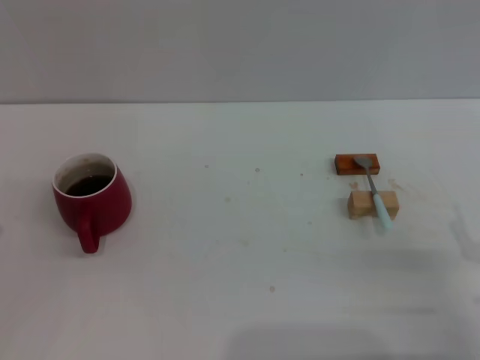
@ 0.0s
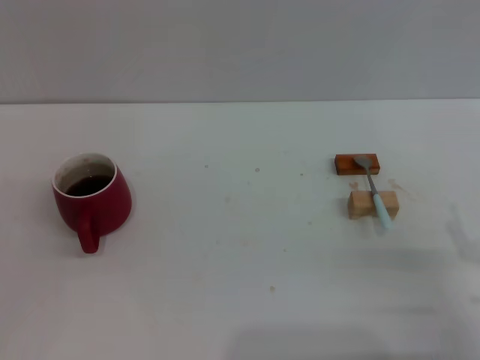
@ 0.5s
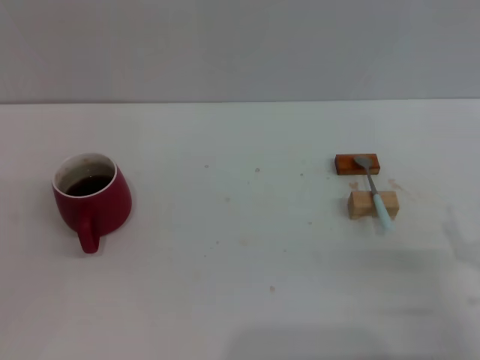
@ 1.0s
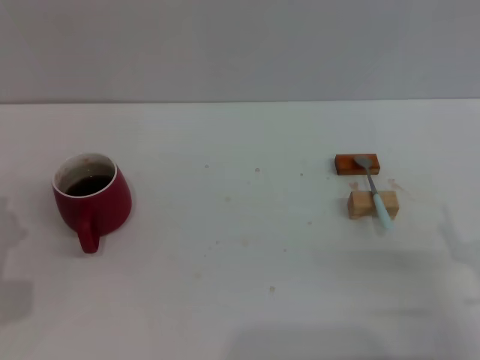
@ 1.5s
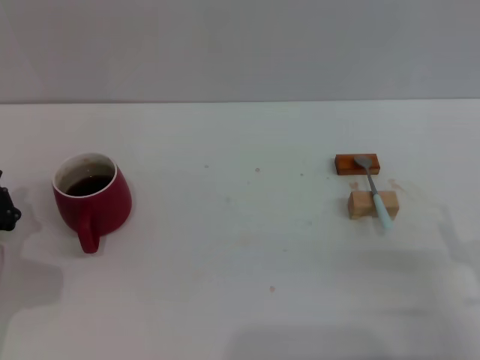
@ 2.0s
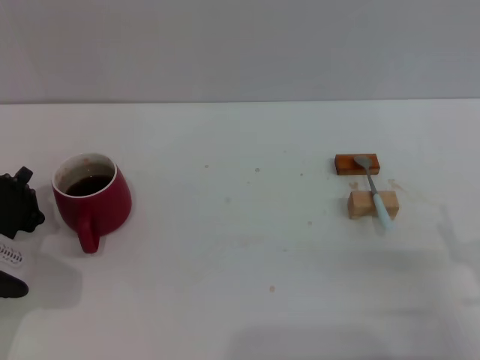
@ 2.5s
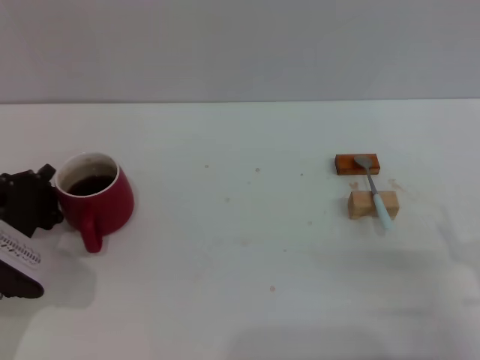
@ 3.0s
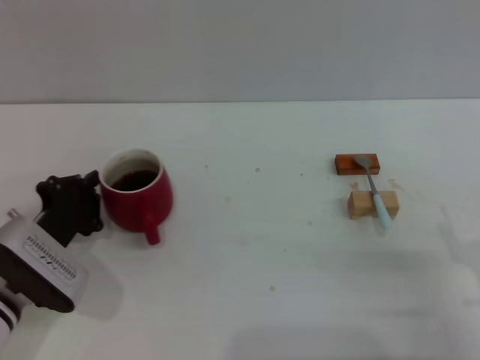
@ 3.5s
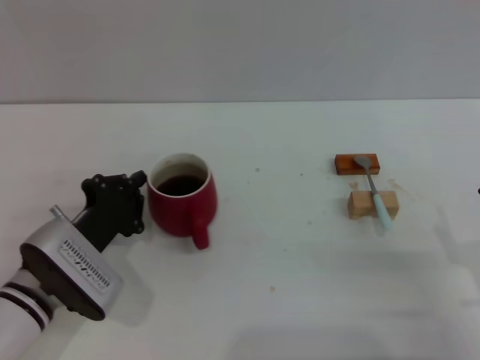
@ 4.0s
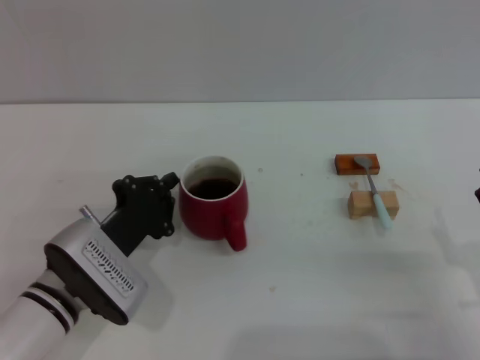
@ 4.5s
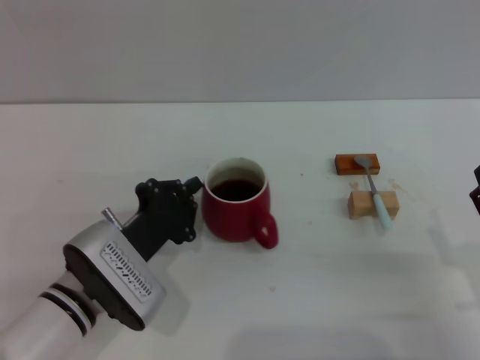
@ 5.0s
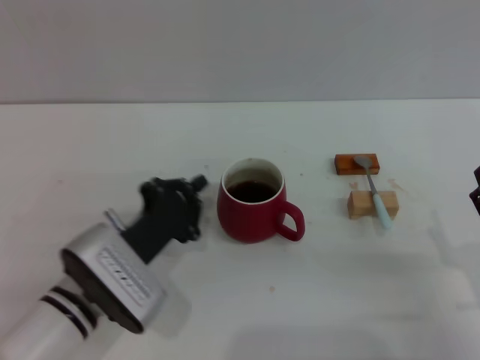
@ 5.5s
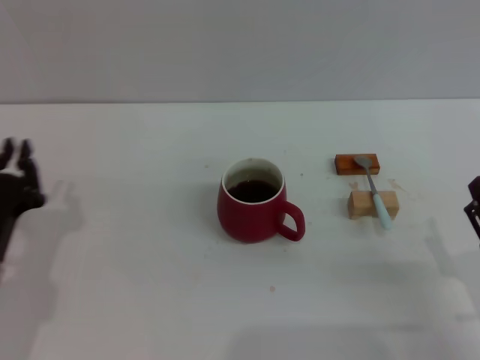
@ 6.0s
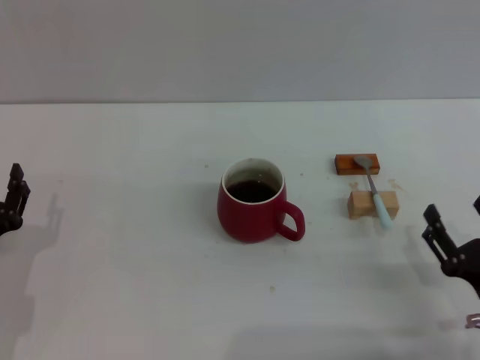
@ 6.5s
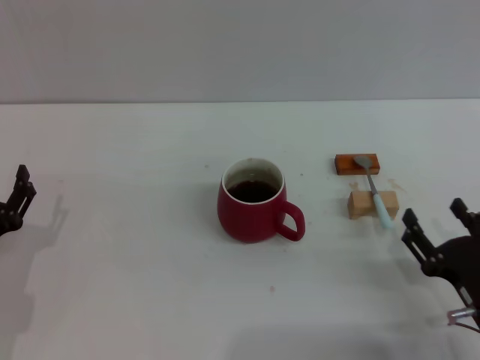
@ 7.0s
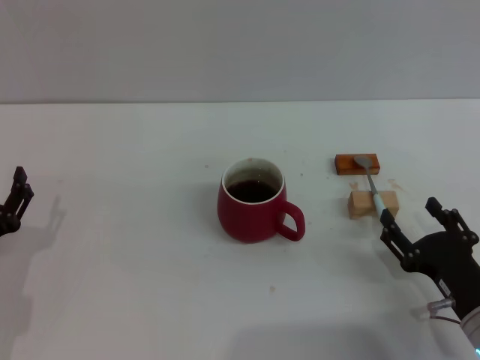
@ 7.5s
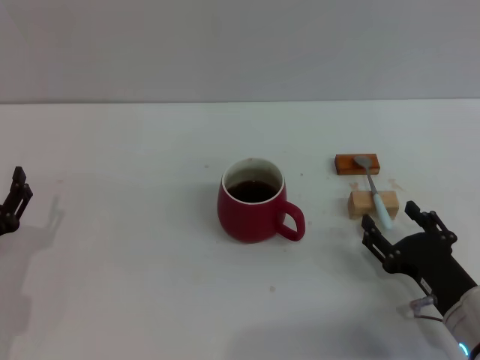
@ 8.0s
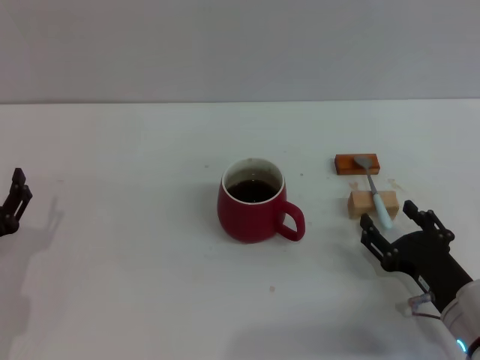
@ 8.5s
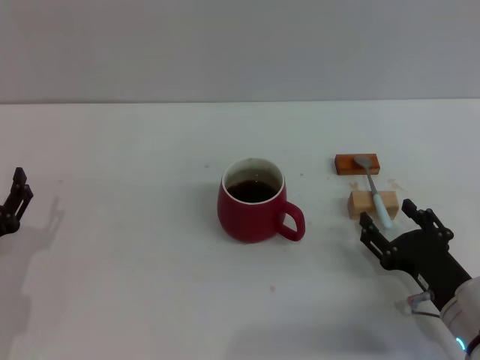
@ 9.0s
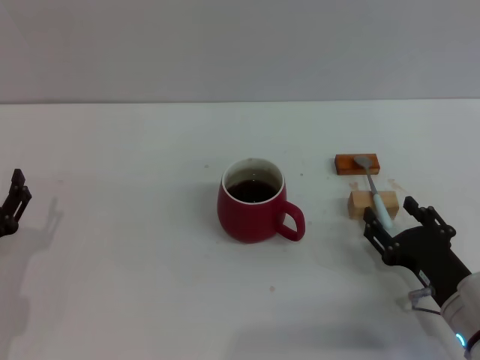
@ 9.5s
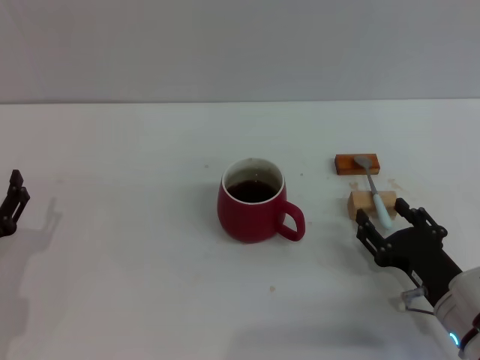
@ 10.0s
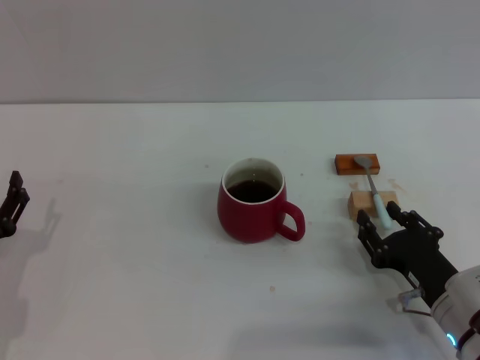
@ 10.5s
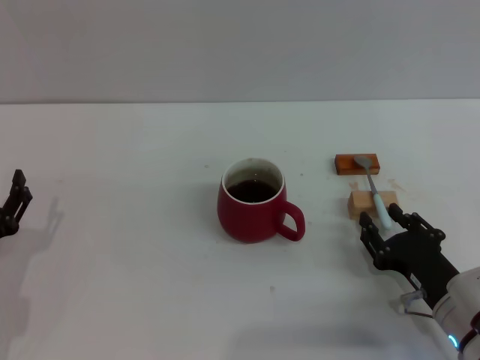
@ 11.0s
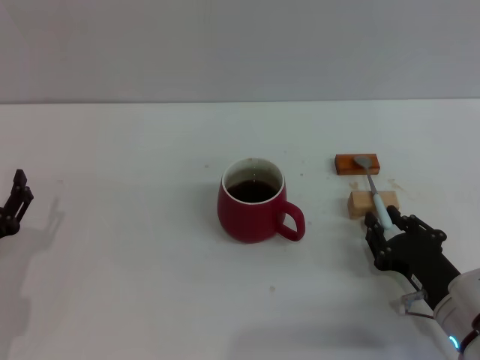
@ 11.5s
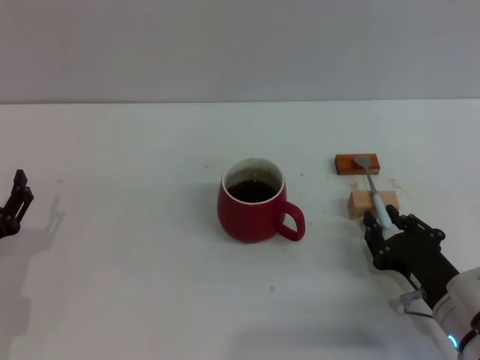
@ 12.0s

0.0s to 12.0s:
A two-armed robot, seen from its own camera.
Task of the whole recording: Move the red cup to the center, lift the blue spoon, stir it three times in the cup, and put the spoon into the cup.
Step, 0.0s to 5.5s: Move the cup with coffee to the center of view with the left gripper.
2.0s to 4.0s: The left gripper is displaced to the right by some 10 cm.
6.0s to 8.0s: The right gripper ends up roughly 5 cm from where it was, while the left gripper moves approximately 5 cm, and opens its fingers.
8.0s to 10.0s: Neither gripper changes place.
10.0s to 12.0s: The right gripper closes up.

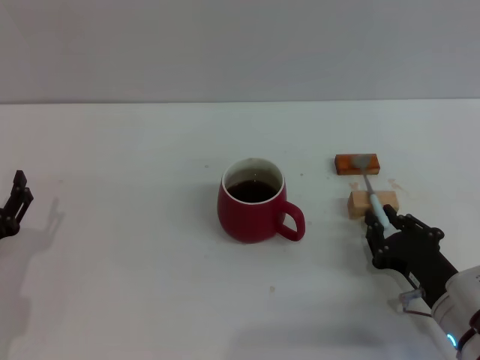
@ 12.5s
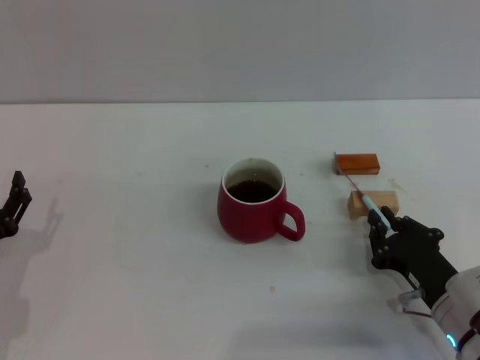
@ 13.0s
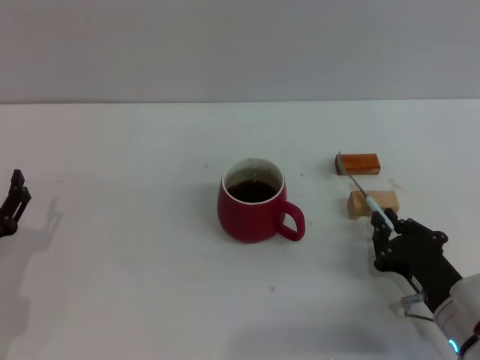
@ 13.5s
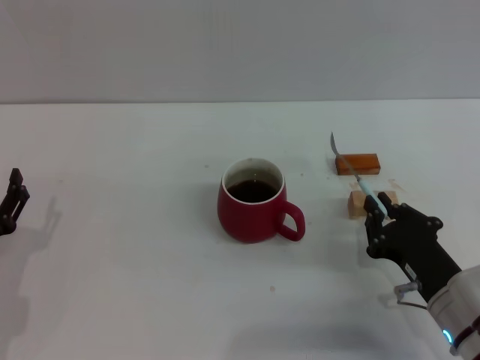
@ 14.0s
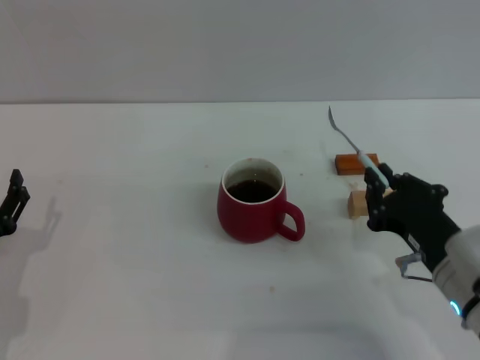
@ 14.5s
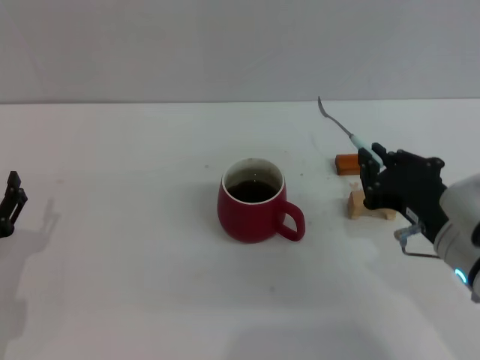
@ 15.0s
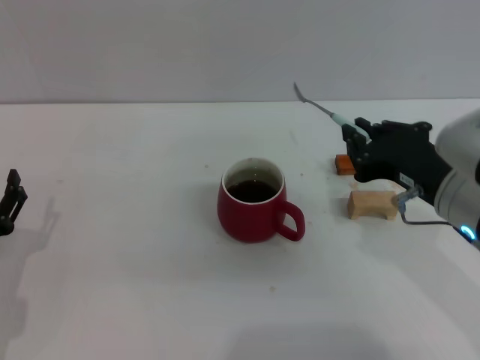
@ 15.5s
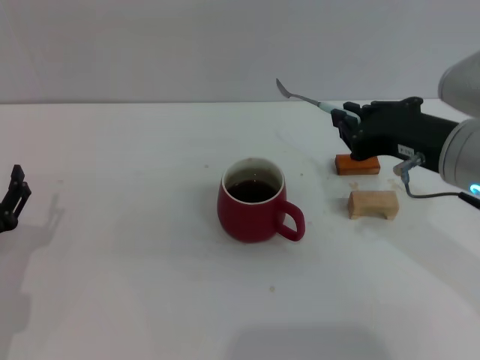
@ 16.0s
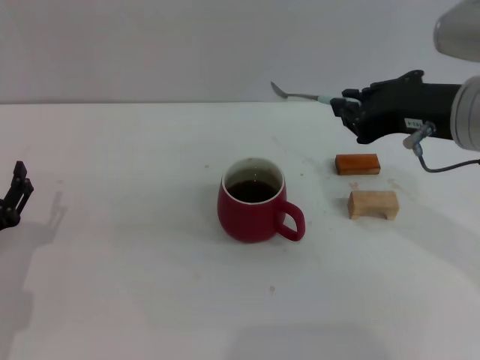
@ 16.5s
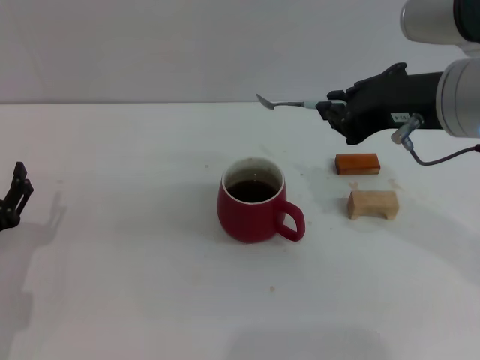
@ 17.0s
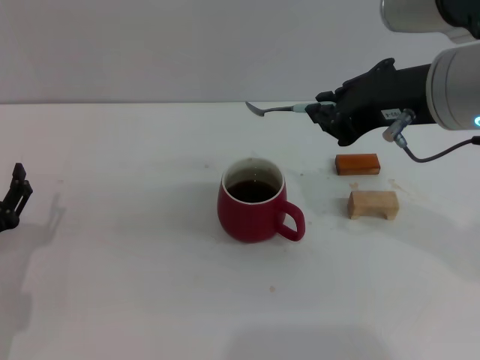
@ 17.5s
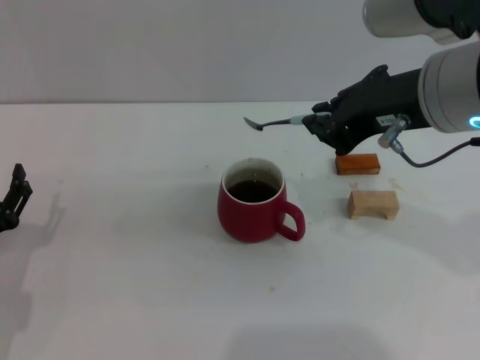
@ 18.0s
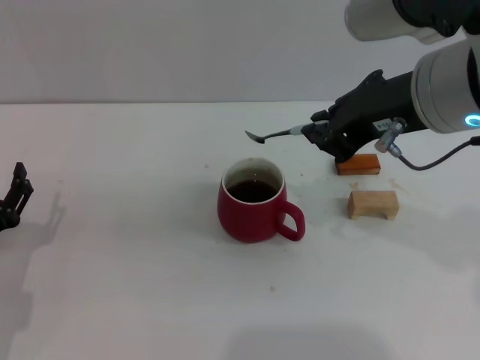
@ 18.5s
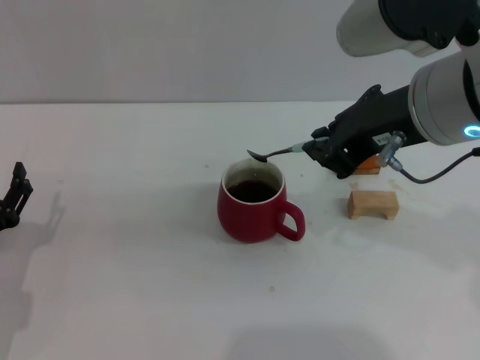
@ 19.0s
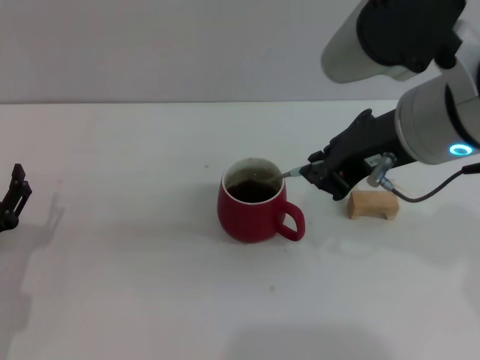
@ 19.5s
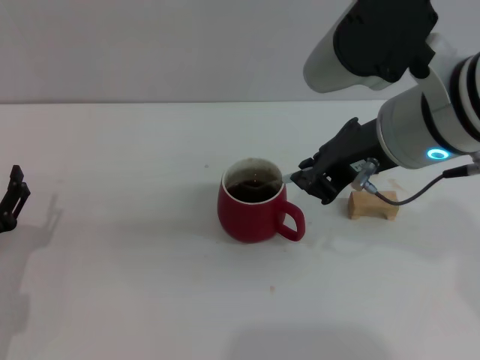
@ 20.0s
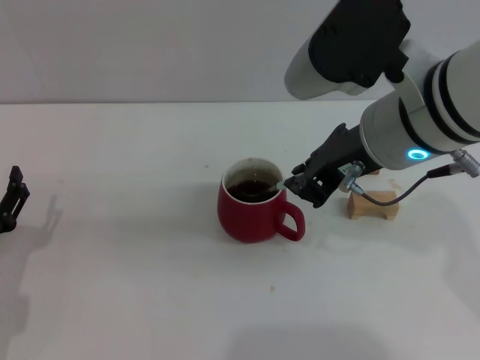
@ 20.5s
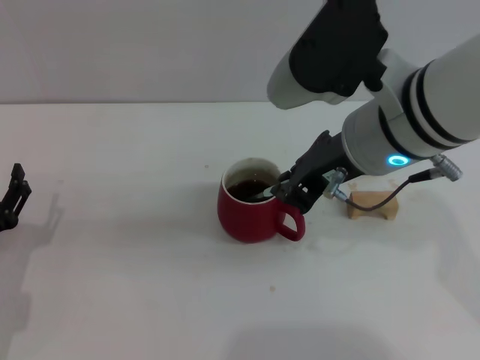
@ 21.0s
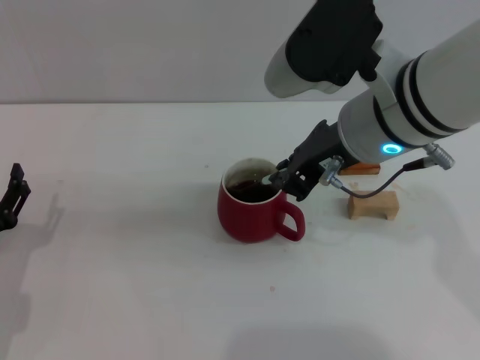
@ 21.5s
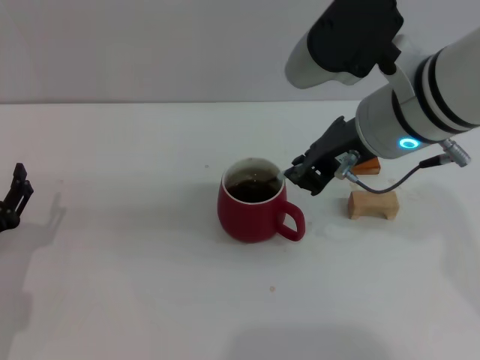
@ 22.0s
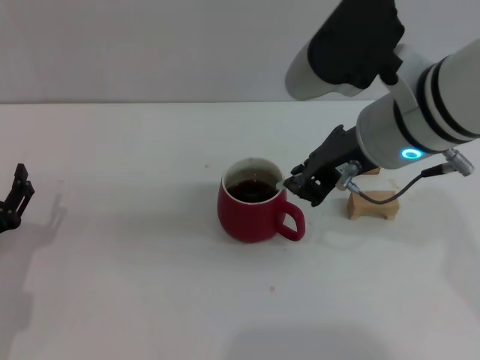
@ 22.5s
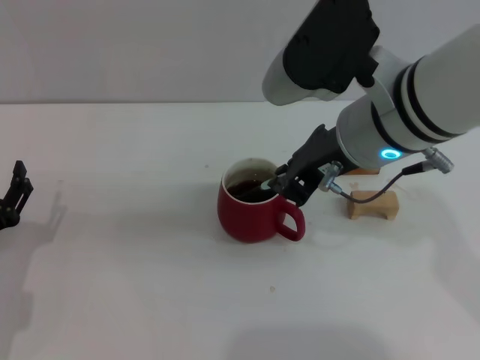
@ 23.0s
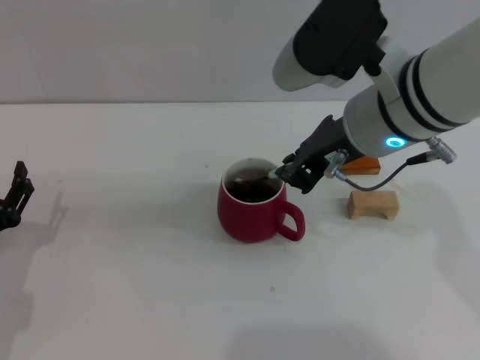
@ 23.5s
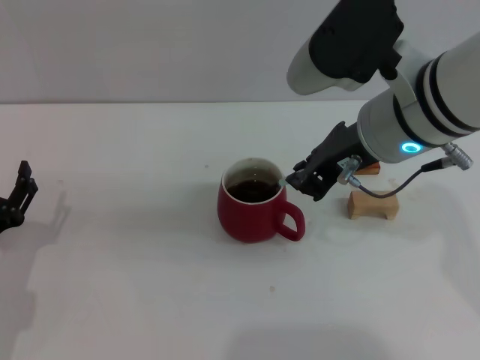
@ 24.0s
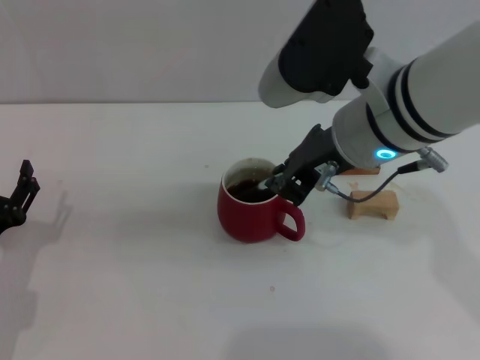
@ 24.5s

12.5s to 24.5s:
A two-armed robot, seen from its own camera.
Task of the whole recording: Move the red cup to the center, lift the blue spoon, stir it three times in the cup, and put the spoon into the cup.
12.5s to 14.5s: The right gripper goes about 5 cm upward.
14.5s to 16.5s: The right gripper heads upward, covering approximately 15 cm.
16.5s to 18.5s: The right gripper ends up some 5 cm from where it was.
18.5s to 20.5s: The right gripper ends up roughly 5 cm from where it was.
20.5s to 24.5s: The grippers move only a little.

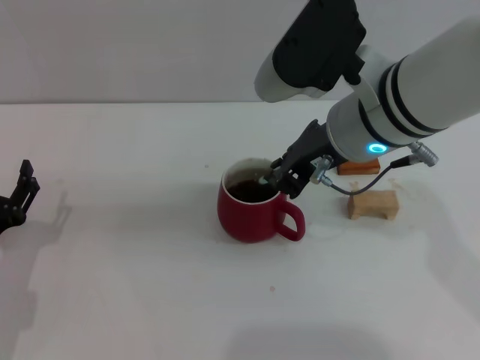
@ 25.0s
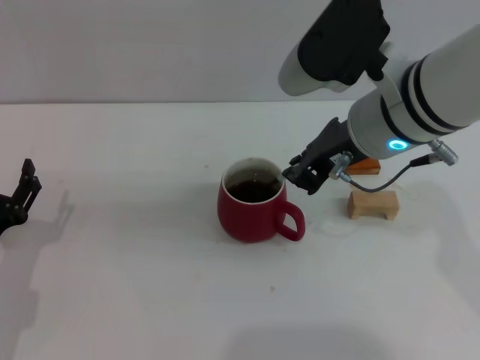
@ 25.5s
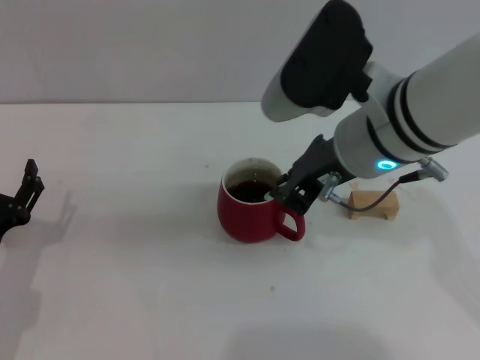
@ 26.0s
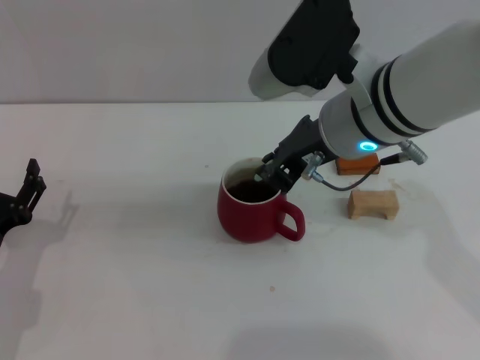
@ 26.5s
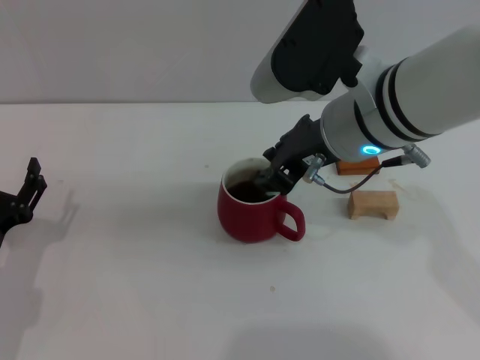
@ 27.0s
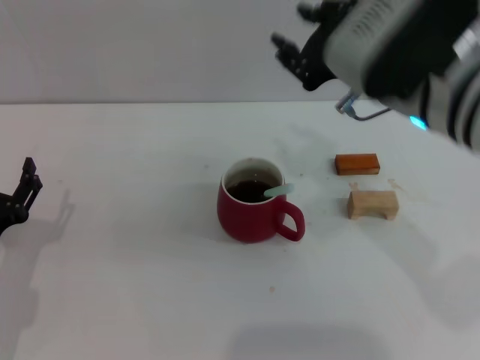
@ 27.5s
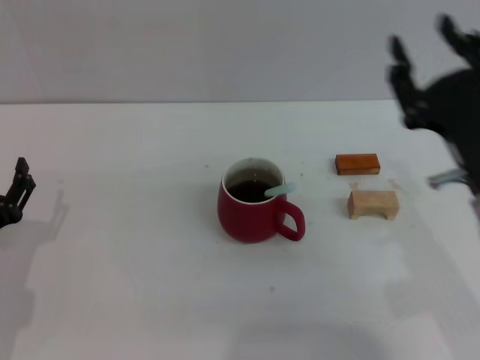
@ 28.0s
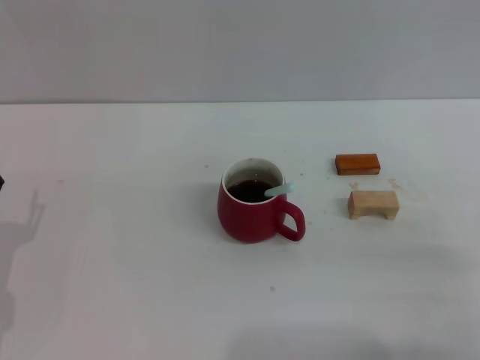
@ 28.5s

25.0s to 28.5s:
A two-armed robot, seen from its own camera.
Task of the whole recording: Move the red cup to the center, lift the blue spoon, stir it three times in the cup, and put the spoon into the cup.
Step, 25.0s to 27.0s: Stir the coffee in the cup with the right gripper.
25.0s to 27.0s: There are only small adjustments of the grippers.
27.0s to 28.5s: The right gripper goes some 30 cm to the right, downward and backward, and opens its fingers.
